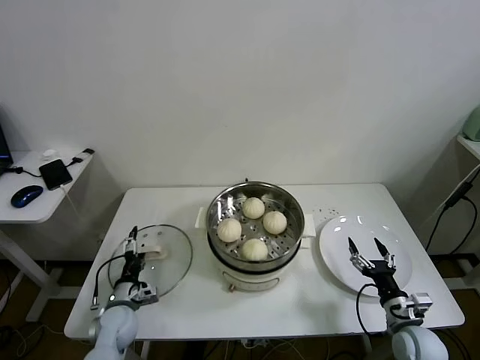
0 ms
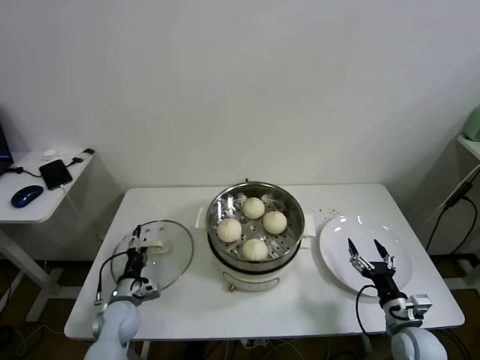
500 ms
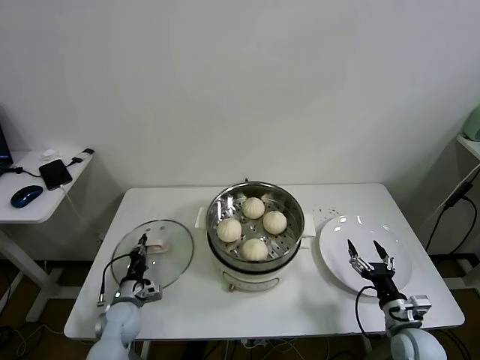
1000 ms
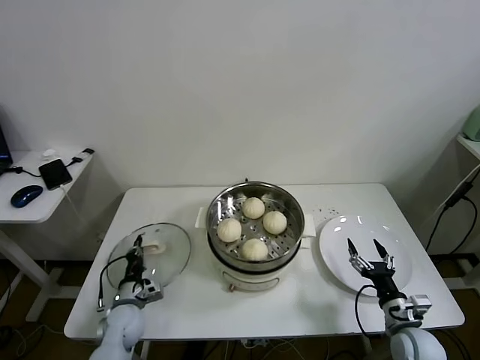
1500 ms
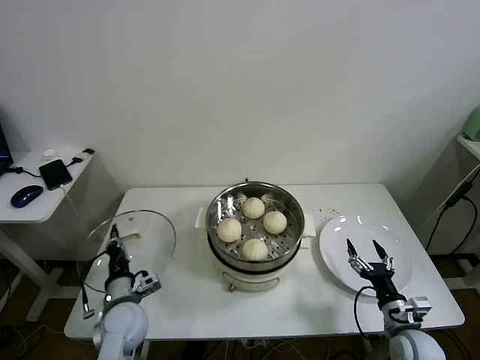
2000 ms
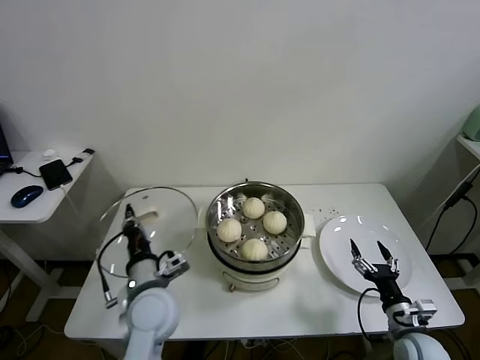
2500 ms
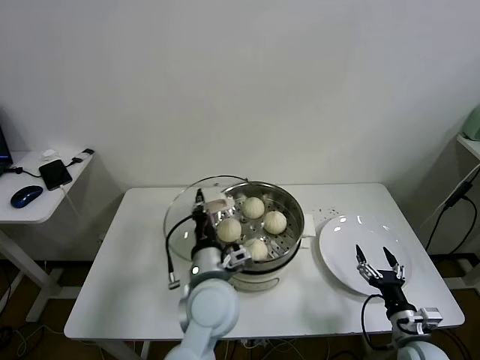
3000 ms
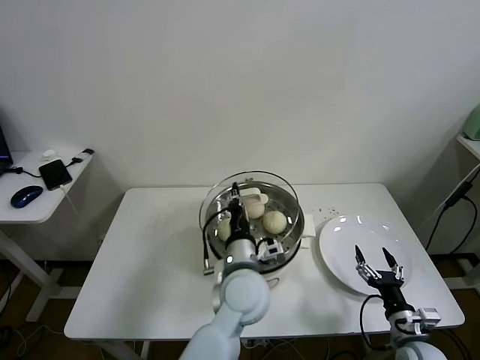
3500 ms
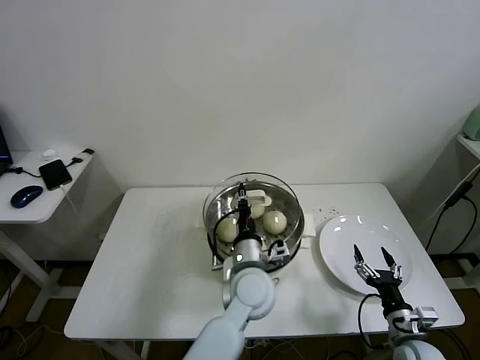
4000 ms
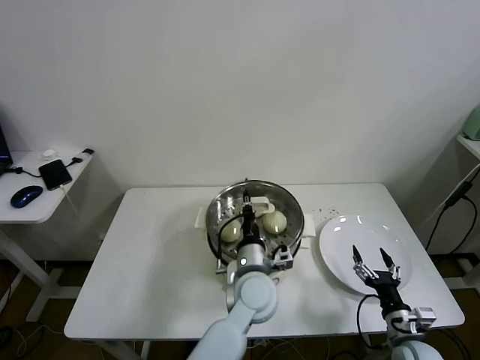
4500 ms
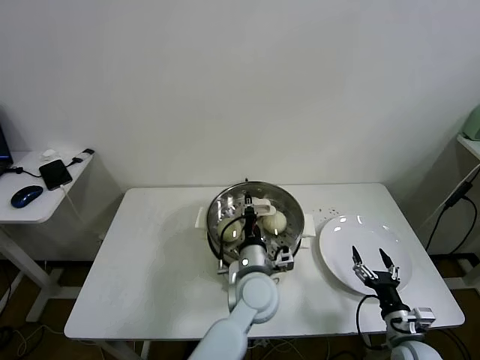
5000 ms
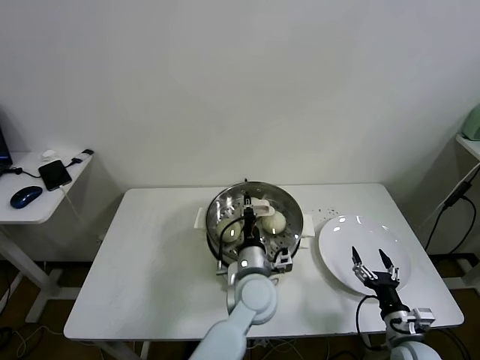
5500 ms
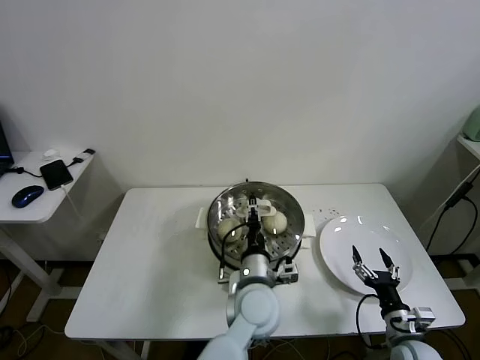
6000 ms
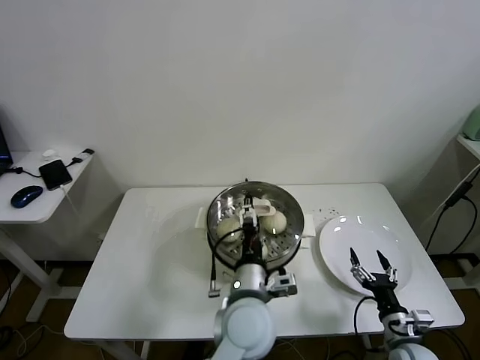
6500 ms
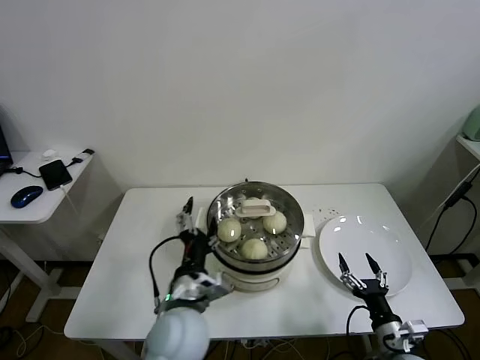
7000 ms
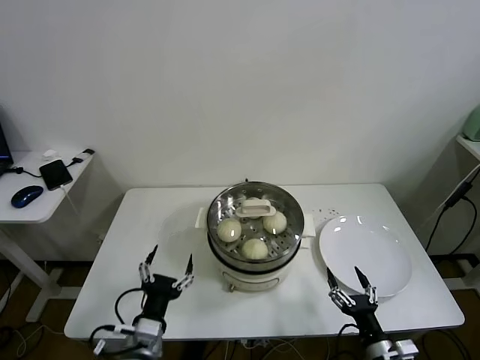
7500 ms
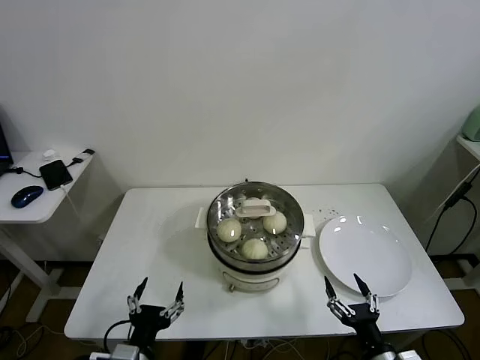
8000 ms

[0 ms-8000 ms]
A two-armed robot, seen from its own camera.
Task of the whole recording: take steamed baozi put them in steamer.
Step, 1500 ms to 5500 ms: Place the pot lid on the steamer with left gripper.
0 ms to 2000 ms: The left gripper travels upward by roughly 5 cm, and closes.
2000 ms to 4000 ms: The left gripper goes roughly 30 cm to the right.
4000 ms to 6000 ms: The left gripper opens up.
6000 ms to 8000 ms: The right gripper shifts some 10 cm backward and to the left, while the left gripper travels to the left and backward by roughly 30 cm, and opens.

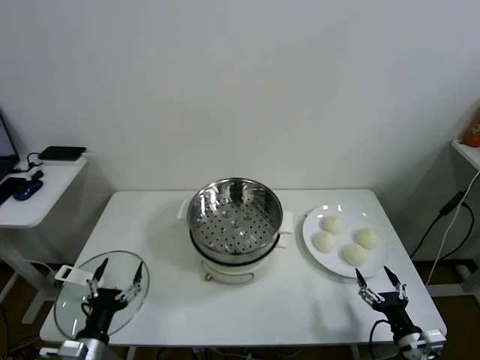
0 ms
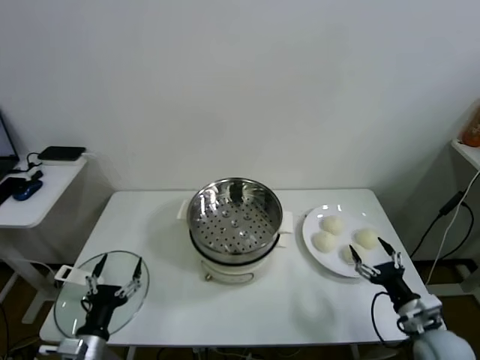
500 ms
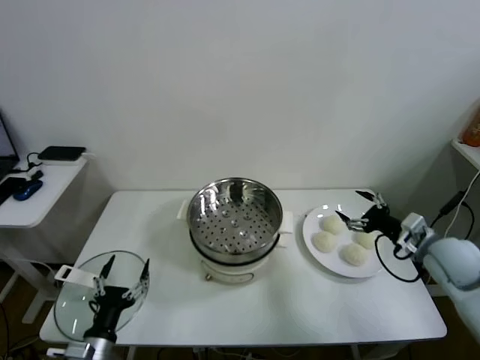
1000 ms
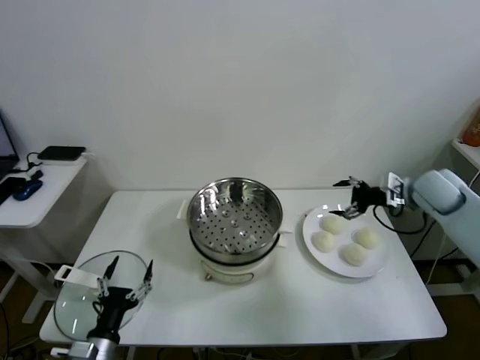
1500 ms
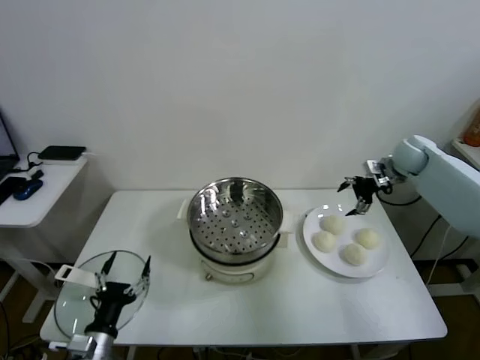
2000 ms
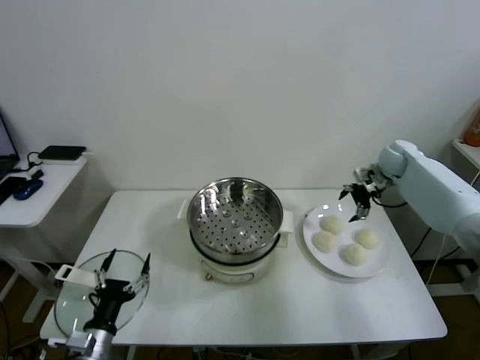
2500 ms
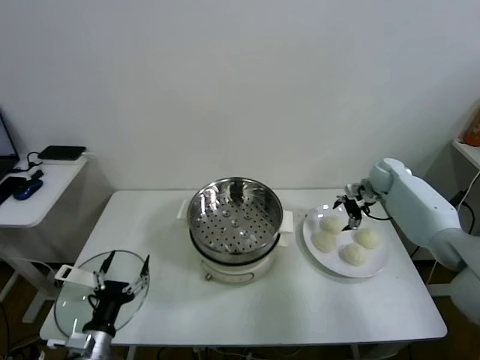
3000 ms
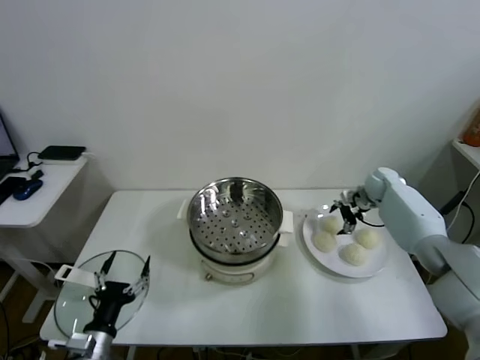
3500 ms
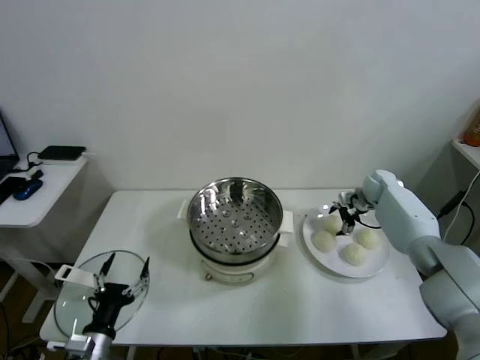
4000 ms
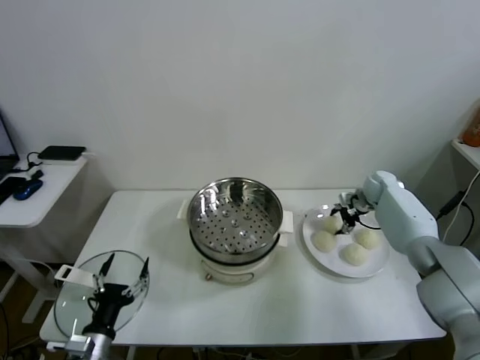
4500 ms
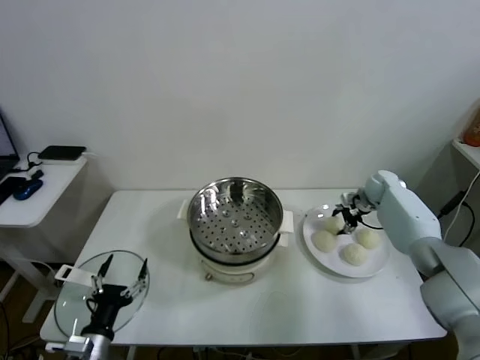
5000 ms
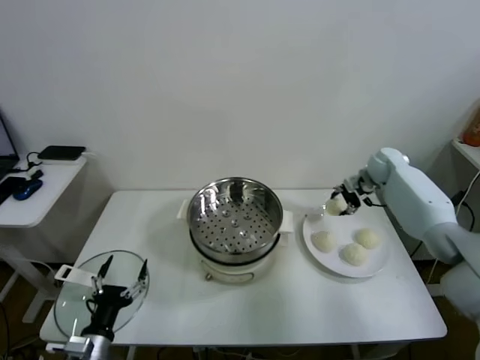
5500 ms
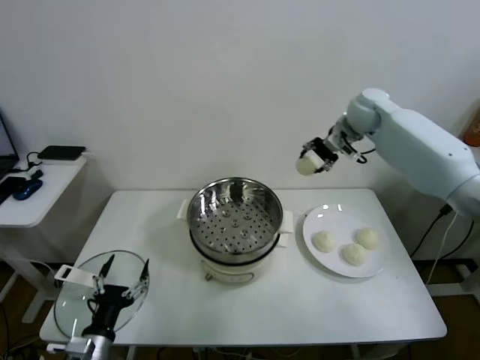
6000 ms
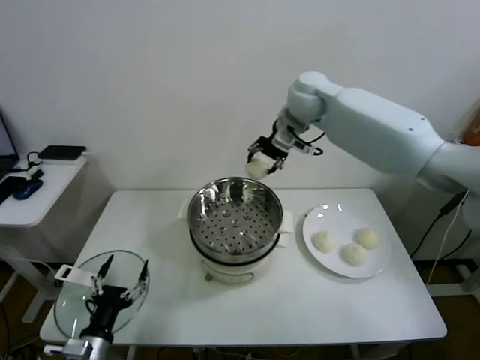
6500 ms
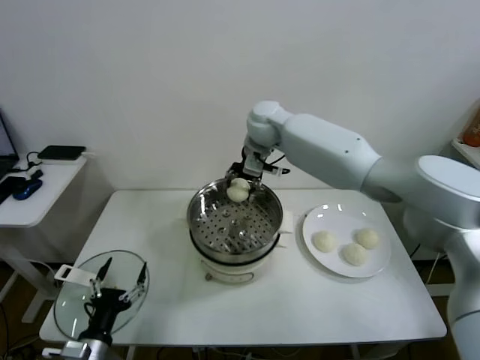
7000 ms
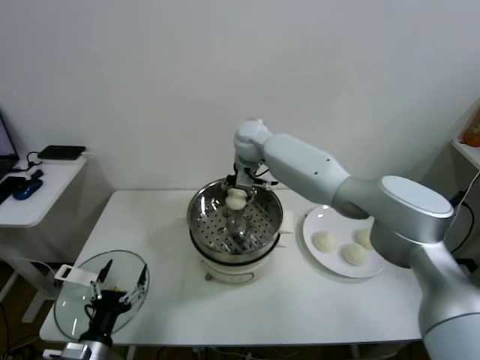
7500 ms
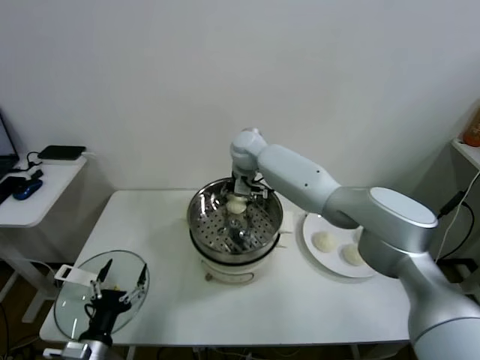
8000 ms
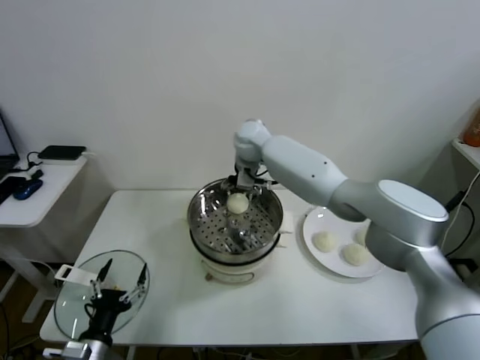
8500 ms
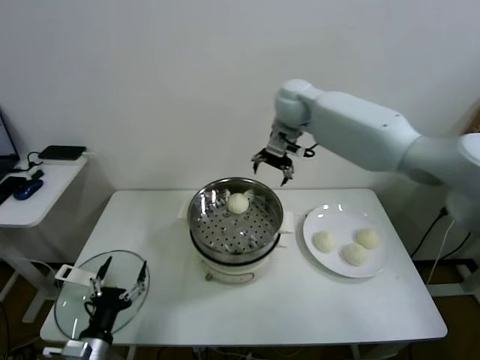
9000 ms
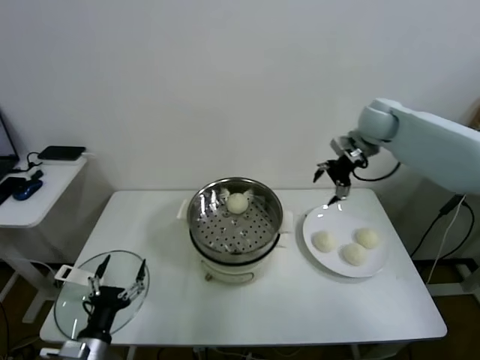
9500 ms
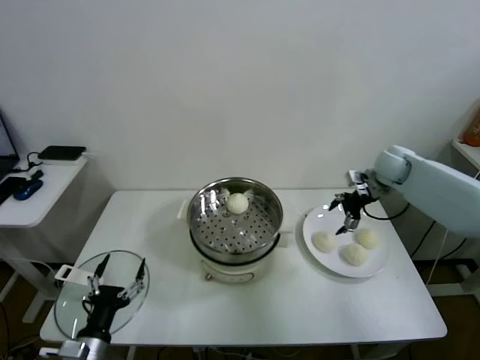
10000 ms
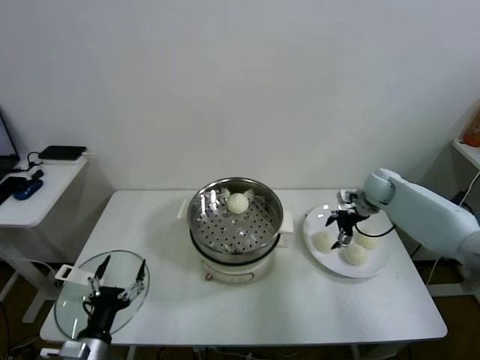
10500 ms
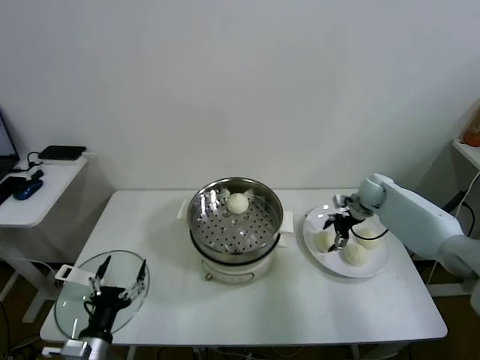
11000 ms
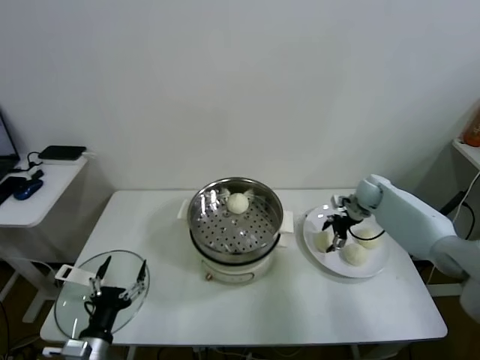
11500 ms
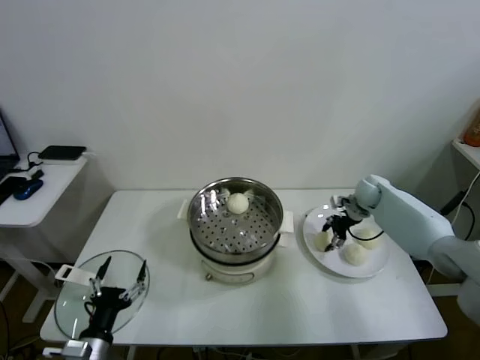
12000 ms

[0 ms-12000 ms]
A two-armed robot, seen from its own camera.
Task of the whole recording: take steamed baozi put them in steamer.
Step, 0 ms to 4500 ms: Grasp the baozi in the plate with right gripper.
Step, 5000 ms to 8000 ms: Place the baozi on the steamer with right gripper.
Step, 9000 ms to 11500 ms: Grasp the baozi in the plate with right gripper.
2000 ms to 4000 ms: The right gripper goes about 15 cm downward.
4000 ms to 6000 ms: The right gripper is displaced upward and to the left by some 30 cm, and closes.
6000 ms to 8000 ms: The right gripper travels to the left and downward by some 30 cm, and opens its fingers.
8000 ms to 10000 ms: The right gripper is displaced to the right by about 35 cm, and opens up.
10000 ms to 12000 ms: The right gripper is displaced downward by approximately 10 cm, and closes.

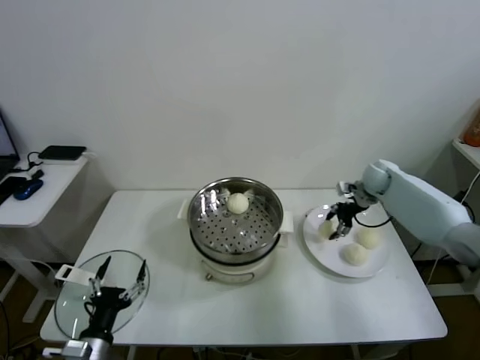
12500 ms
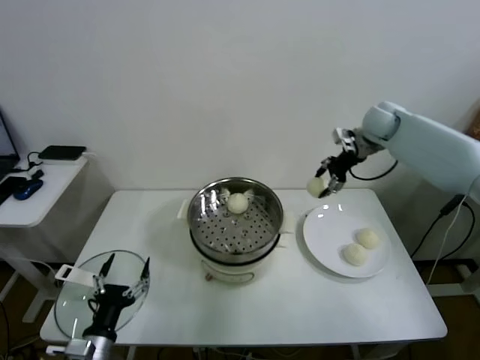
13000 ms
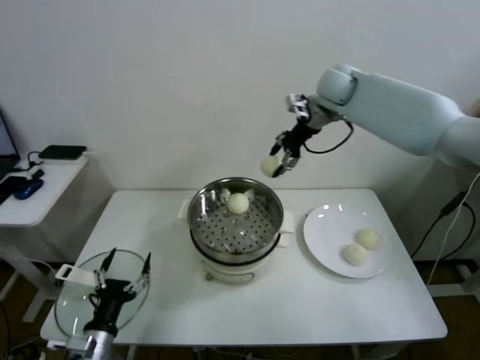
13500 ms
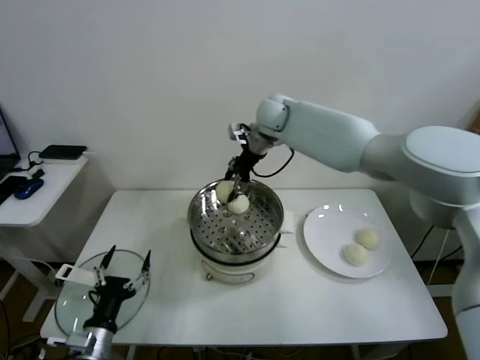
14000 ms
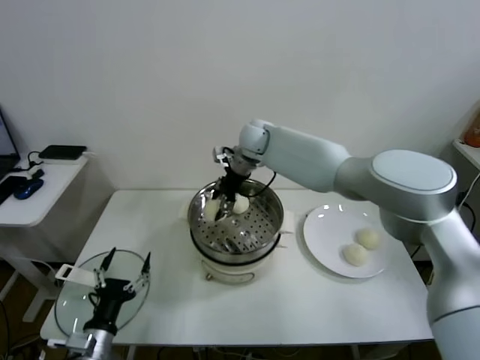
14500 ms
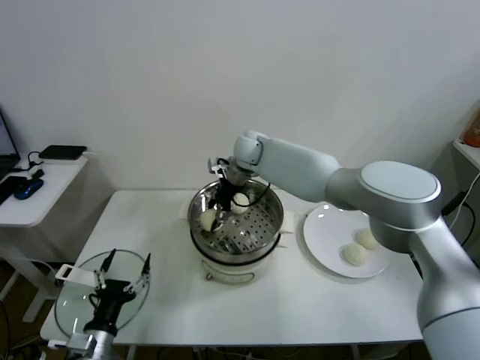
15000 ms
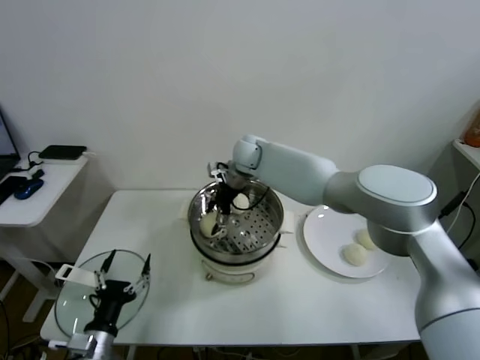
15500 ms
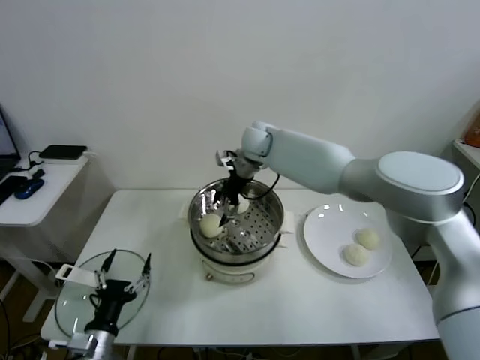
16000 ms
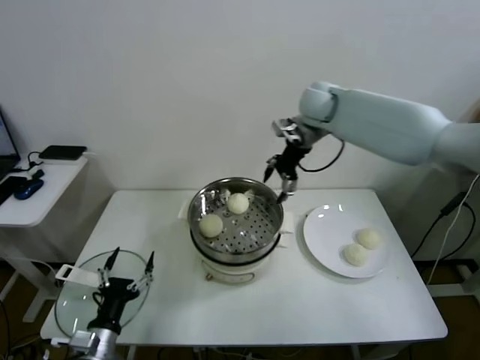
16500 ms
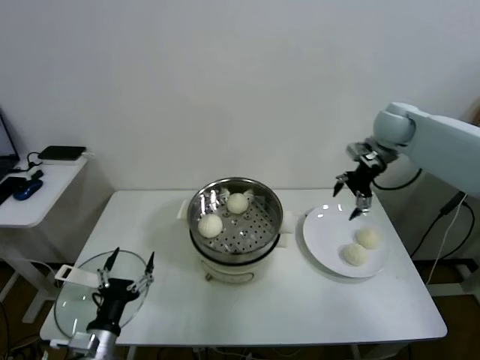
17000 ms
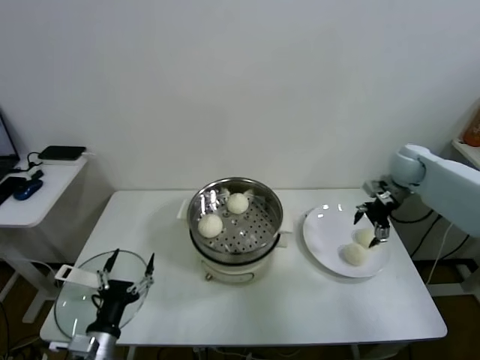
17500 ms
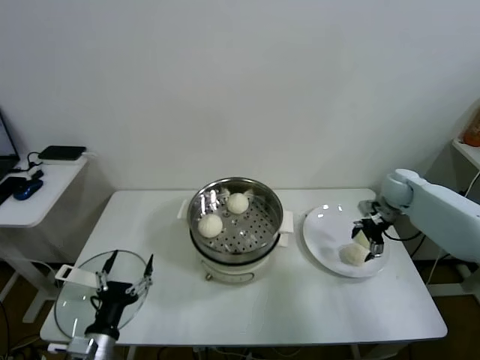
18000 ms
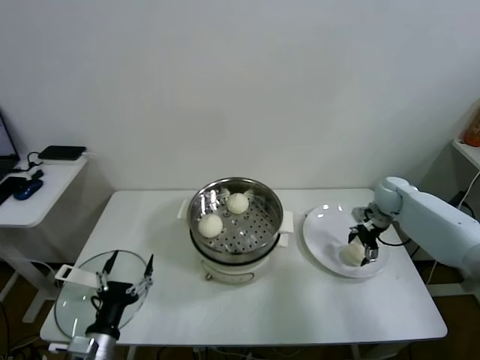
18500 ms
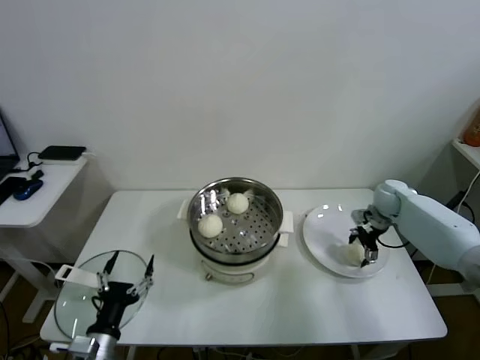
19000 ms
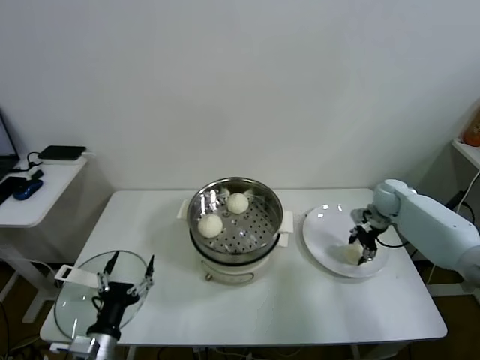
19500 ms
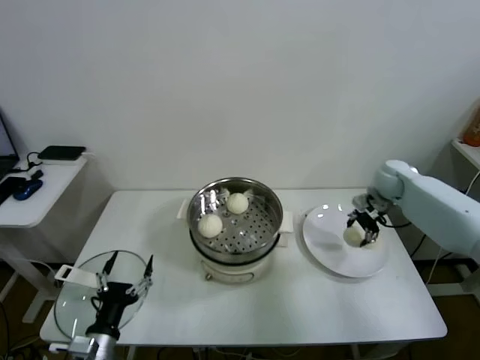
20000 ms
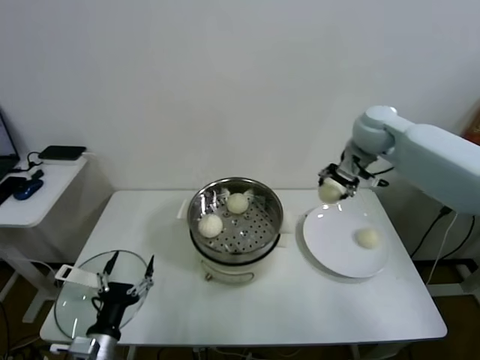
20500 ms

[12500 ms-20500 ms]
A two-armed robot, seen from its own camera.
Task of the whole recording: take steamed baozi put them in steamer.
Step, 12500 ms to 15500 ms: Place the baozi on the steamer with right gripper.
Step, 16000 ms to 19000 ms: Grasp the baozi in the plate with right gripper.
12500 ms to 14500 ms: The right gripper travels to the left by some 35 cm.
14500 ms to 16500 ms: The right gripper heads to the right and upward, covering approximately 20 cm, and opens.
16500 ms to 18500 ms: The right gripper travels downward and to the right by approximately 35 cm.
18500 ms to 20500 ms: The right gripper moves upward and to the left, roughly 25 cm, and closes up.
